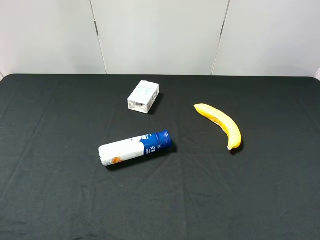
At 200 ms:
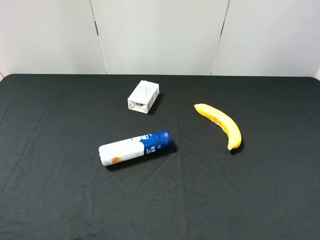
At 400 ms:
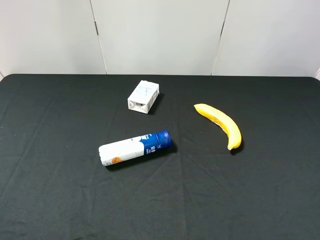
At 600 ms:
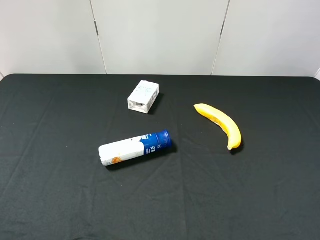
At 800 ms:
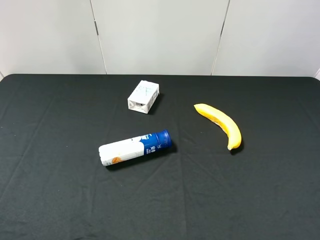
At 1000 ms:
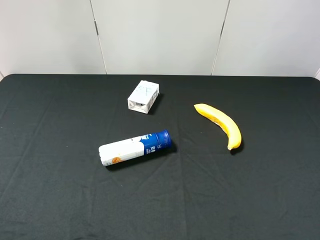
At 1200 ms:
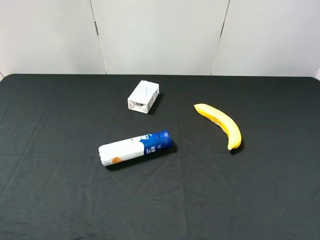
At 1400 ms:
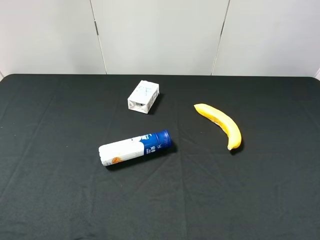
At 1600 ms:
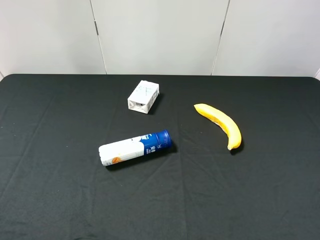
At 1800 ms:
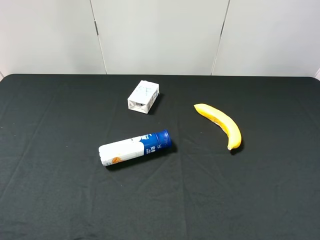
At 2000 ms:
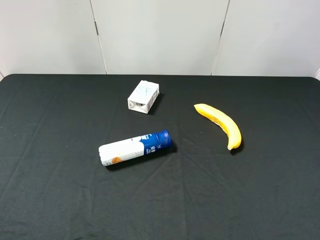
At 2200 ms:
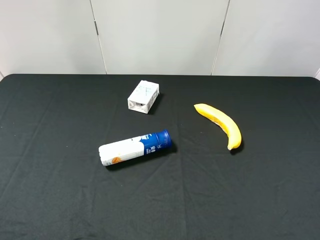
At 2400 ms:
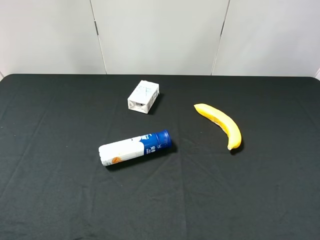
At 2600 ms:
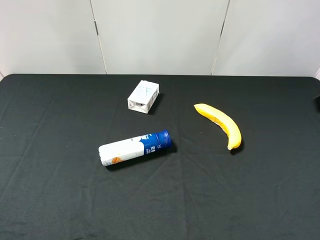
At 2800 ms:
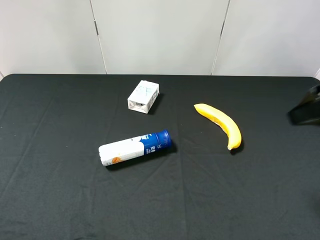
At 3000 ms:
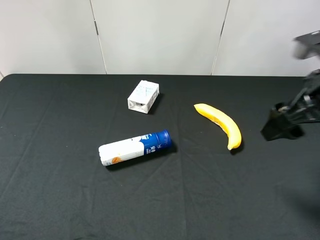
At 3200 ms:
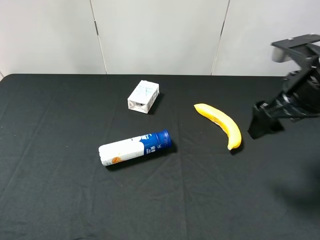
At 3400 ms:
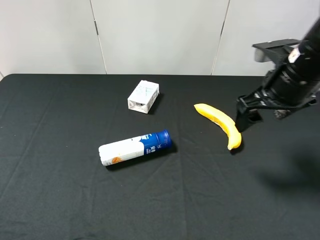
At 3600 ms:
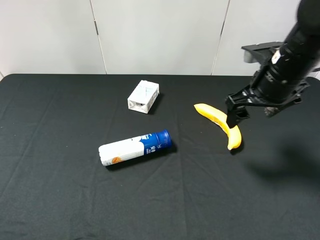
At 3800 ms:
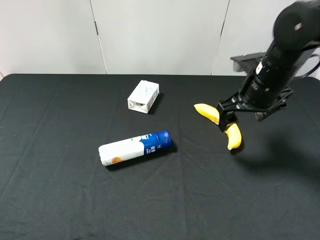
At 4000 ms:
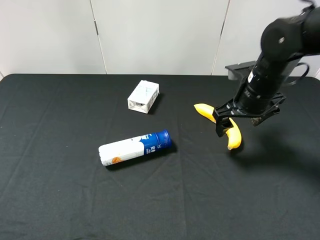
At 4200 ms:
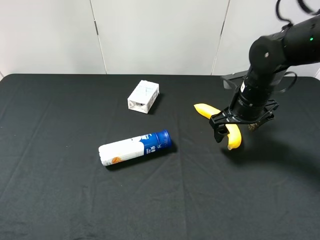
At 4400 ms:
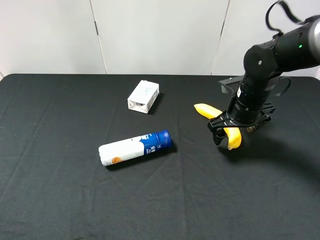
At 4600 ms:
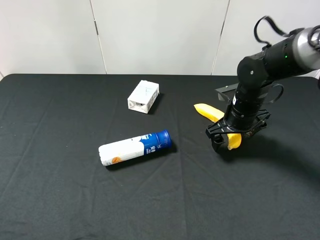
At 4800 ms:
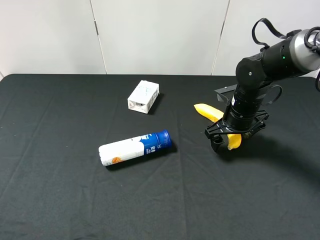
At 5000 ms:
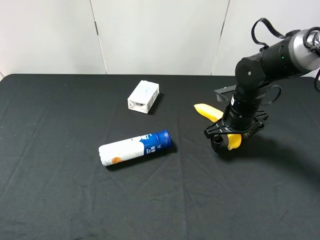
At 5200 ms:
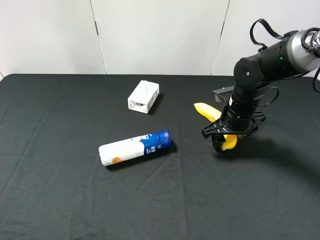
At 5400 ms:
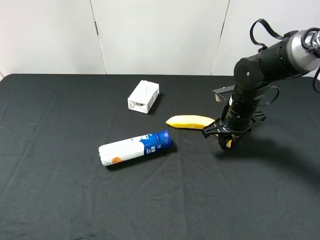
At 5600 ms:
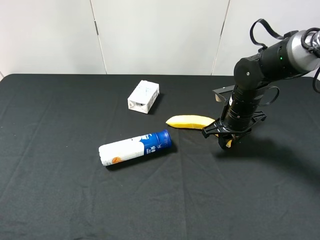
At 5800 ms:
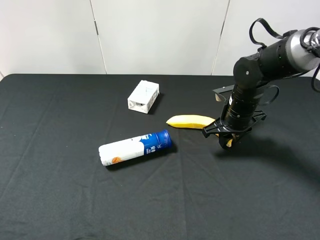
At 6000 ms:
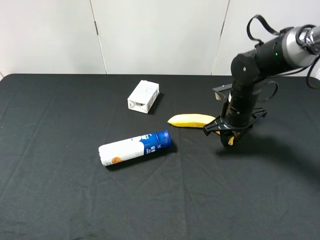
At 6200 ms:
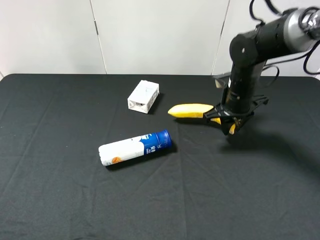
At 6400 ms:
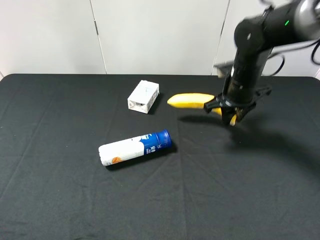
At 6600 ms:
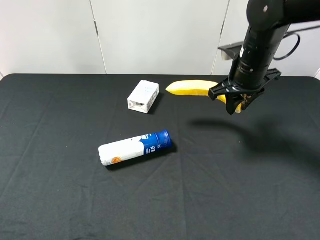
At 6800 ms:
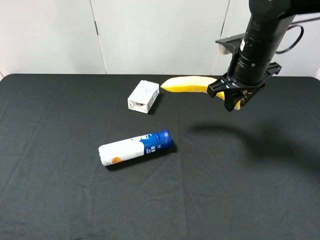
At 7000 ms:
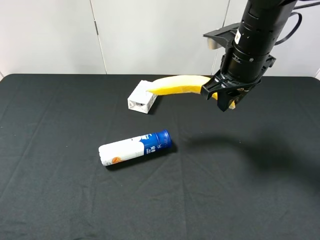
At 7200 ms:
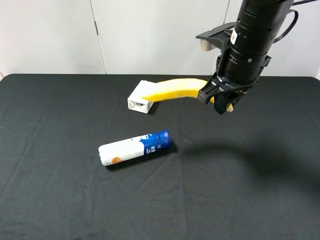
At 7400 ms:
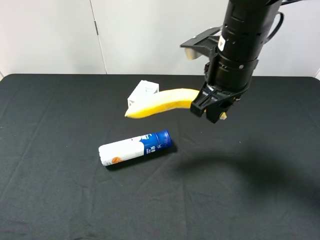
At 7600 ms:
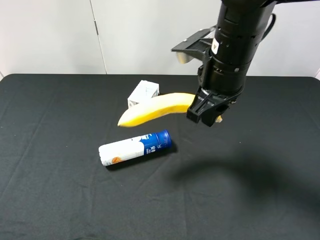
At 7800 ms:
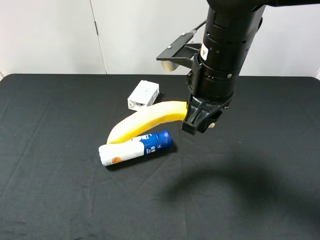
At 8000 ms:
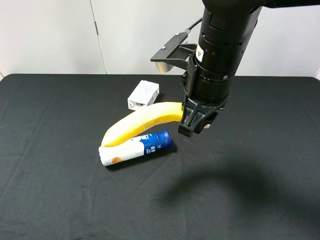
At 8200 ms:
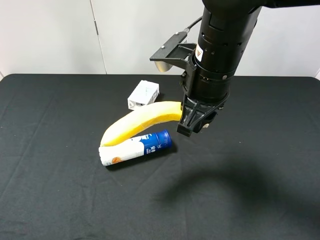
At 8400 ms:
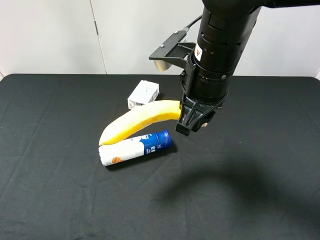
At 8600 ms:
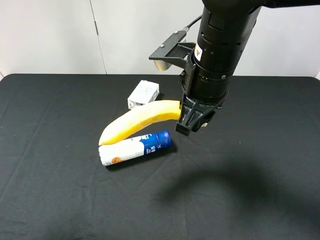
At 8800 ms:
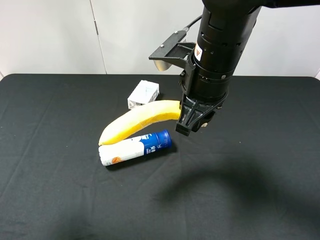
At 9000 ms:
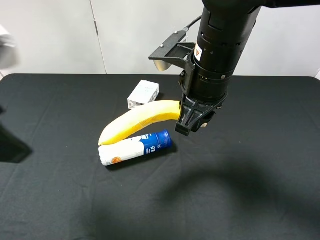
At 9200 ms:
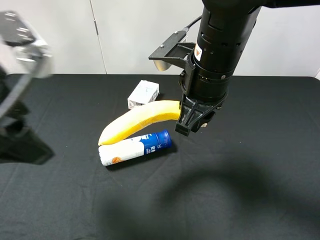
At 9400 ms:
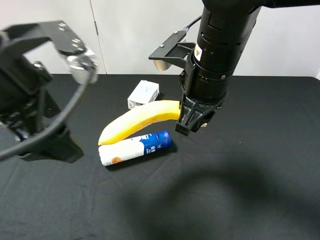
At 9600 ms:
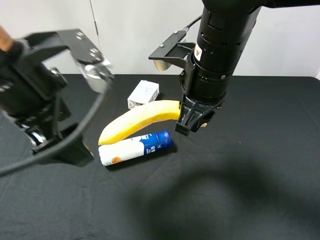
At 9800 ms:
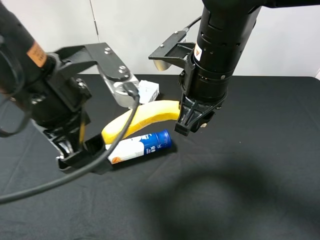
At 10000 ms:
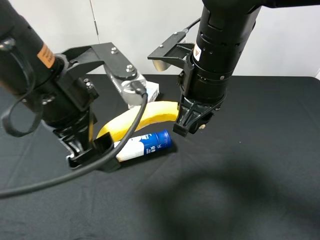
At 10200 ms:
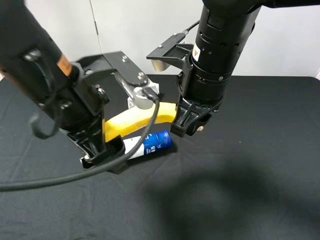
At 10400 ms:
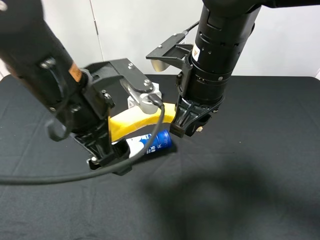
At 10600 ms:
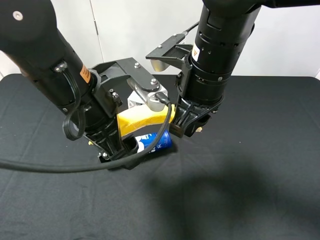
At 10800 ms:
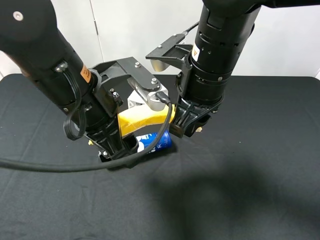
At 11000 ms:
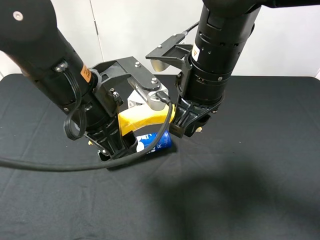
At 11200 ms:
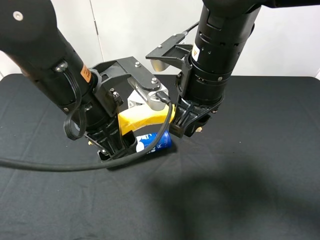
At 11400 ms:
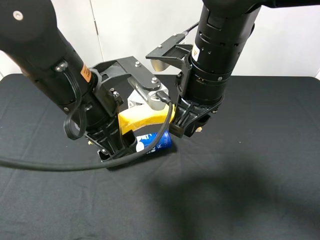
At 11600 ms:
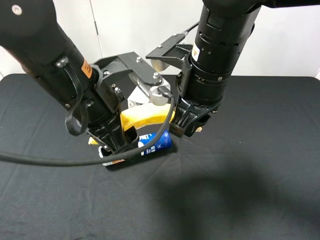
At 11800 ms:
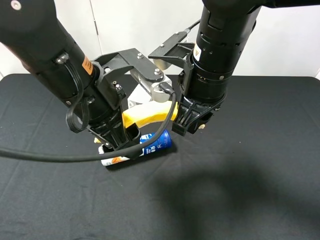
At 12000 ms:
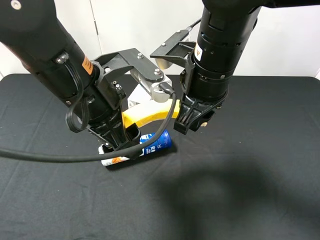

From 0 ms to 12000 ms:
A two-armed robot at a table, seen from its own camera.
Task of the whole recording: use the right gripper to pick up the item and transfer it from the right gripper to the left gripper.
Step, from 0 ms to 6000 ms: Use the right gripper to grab the banana on the right side of the table.
From 0 ms to 1600 ms: Neither gripper changes place.
From 1600 ms to 3000 ms: The right gripper goes approximately 20 cm forward.
From 3000 ms to 4400 ms: The right gripper shifts roughly 20 cm downward and forward.
From 4400 ms to 6000 ms: The right gripper closes its fingers.
From 6000 ms to 7600 ms: The right gripper goes about 20 cm upward, to the left and backward.
From 7600 ms to 9000 ms: The left gripper travels forward and to the right by about 15 cm.
From 9000 ms to 10400 ms: The left gripper is displaced to the right and downward by roughly 15 cm.
From 10400 ms to 12000 ms: There are only small adjustments of the grippers.

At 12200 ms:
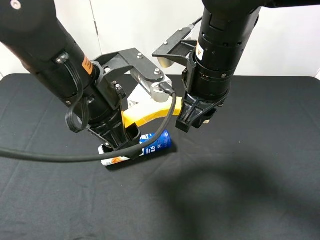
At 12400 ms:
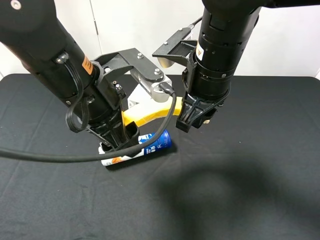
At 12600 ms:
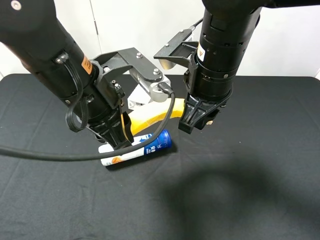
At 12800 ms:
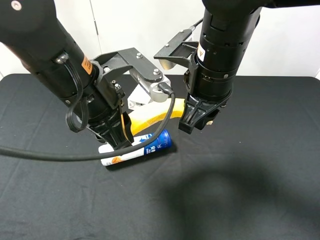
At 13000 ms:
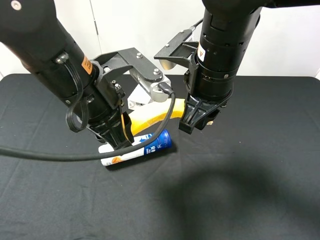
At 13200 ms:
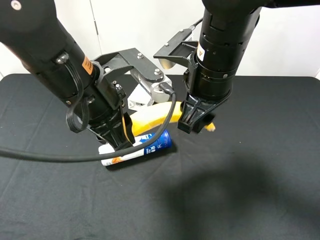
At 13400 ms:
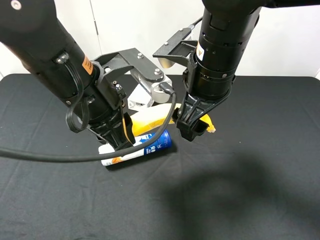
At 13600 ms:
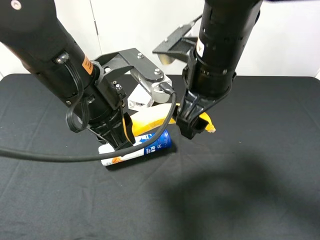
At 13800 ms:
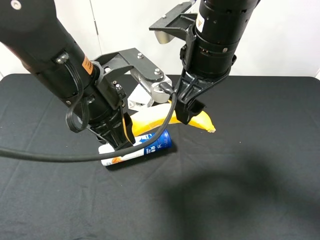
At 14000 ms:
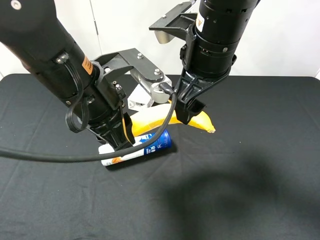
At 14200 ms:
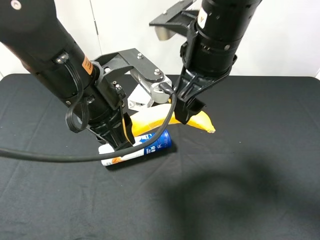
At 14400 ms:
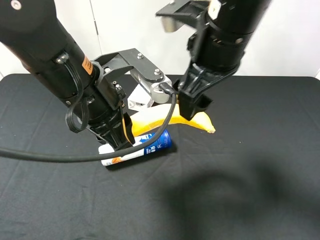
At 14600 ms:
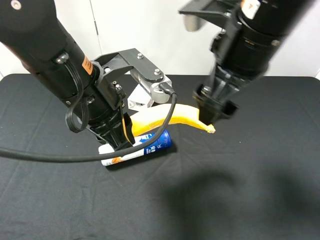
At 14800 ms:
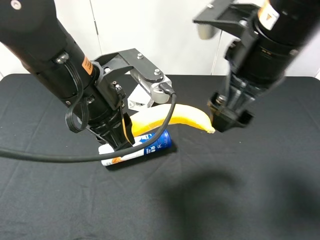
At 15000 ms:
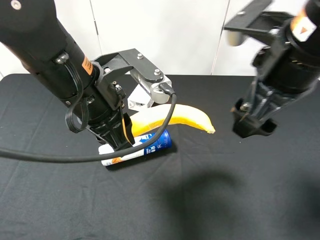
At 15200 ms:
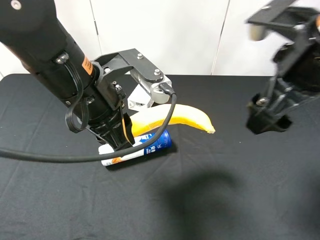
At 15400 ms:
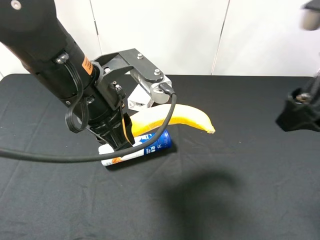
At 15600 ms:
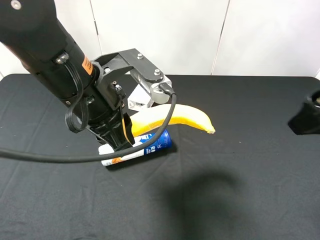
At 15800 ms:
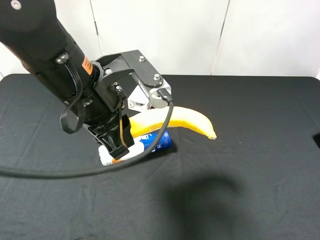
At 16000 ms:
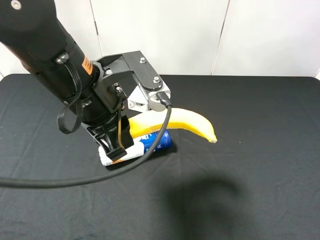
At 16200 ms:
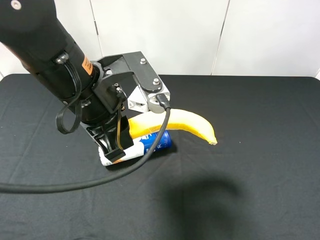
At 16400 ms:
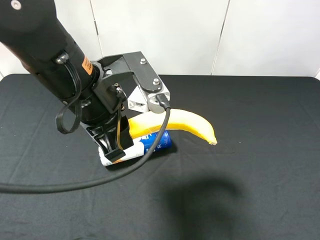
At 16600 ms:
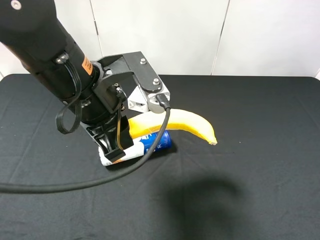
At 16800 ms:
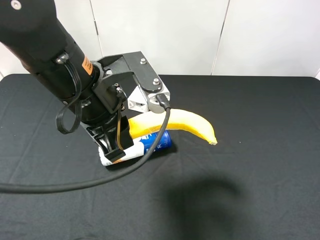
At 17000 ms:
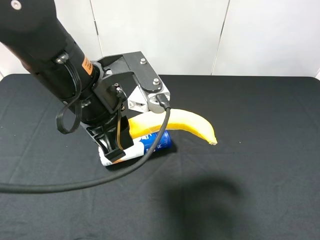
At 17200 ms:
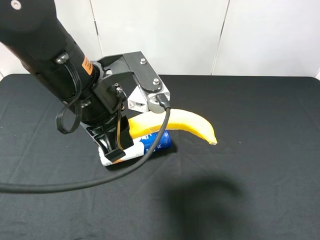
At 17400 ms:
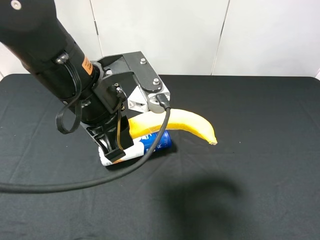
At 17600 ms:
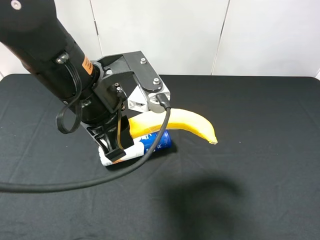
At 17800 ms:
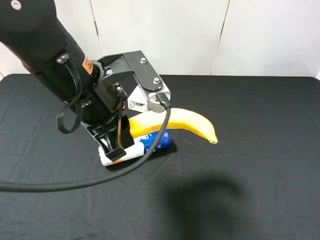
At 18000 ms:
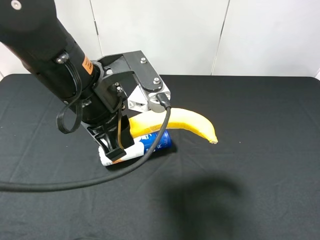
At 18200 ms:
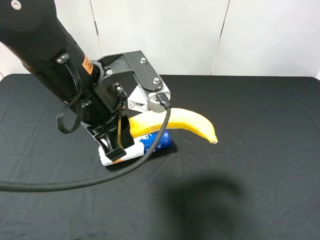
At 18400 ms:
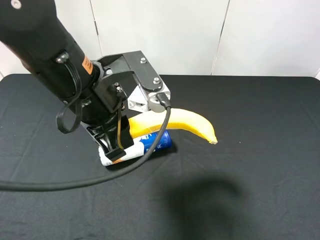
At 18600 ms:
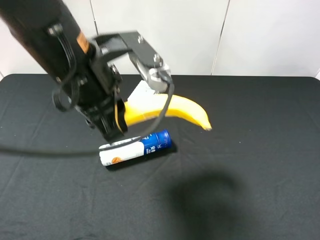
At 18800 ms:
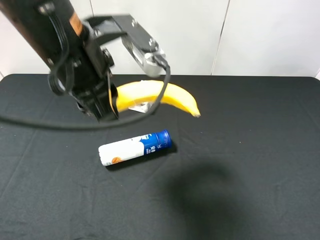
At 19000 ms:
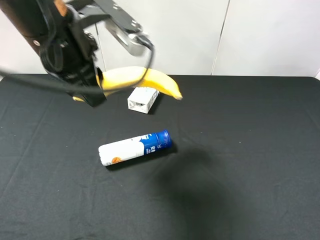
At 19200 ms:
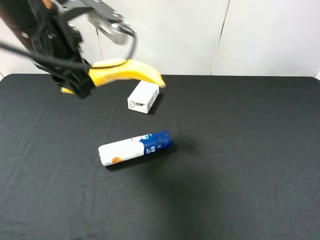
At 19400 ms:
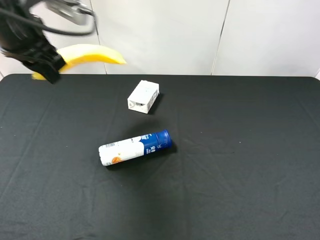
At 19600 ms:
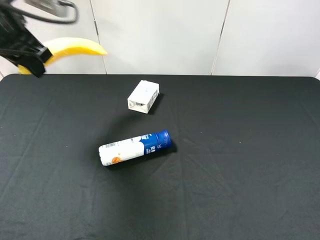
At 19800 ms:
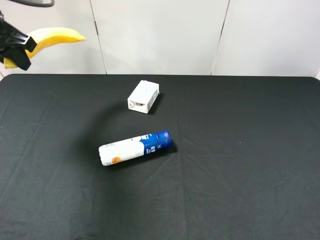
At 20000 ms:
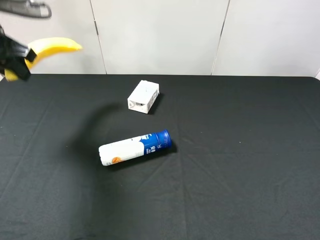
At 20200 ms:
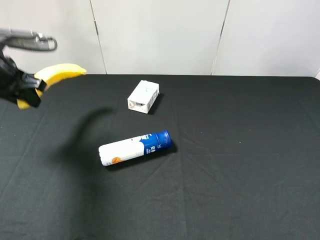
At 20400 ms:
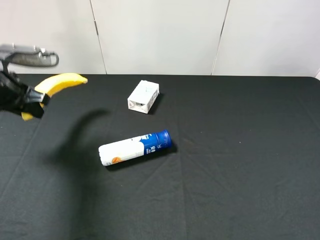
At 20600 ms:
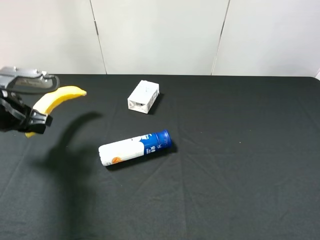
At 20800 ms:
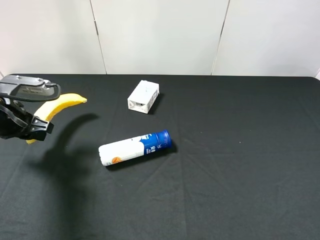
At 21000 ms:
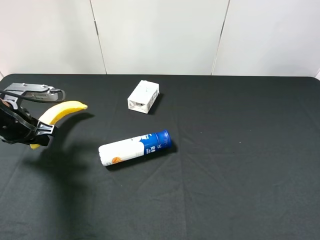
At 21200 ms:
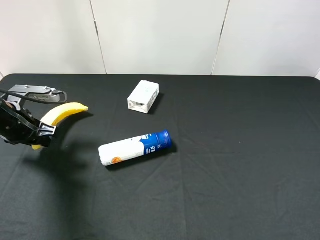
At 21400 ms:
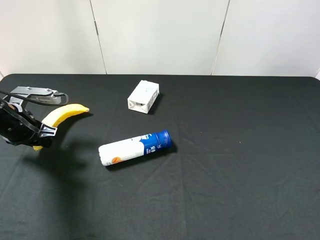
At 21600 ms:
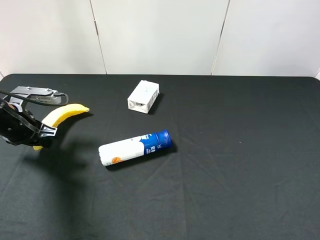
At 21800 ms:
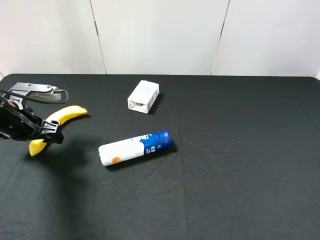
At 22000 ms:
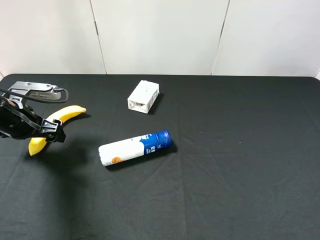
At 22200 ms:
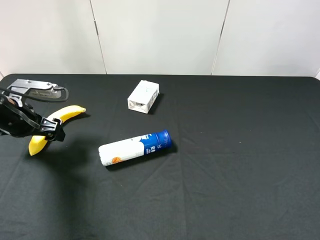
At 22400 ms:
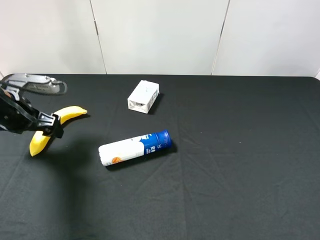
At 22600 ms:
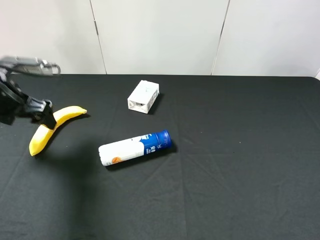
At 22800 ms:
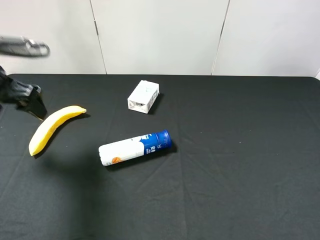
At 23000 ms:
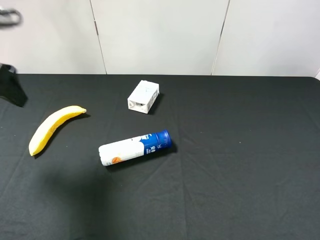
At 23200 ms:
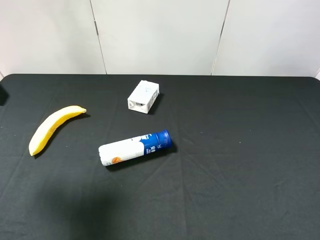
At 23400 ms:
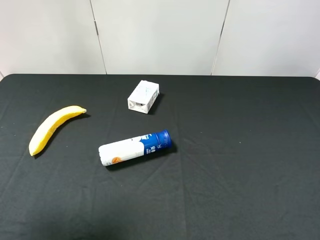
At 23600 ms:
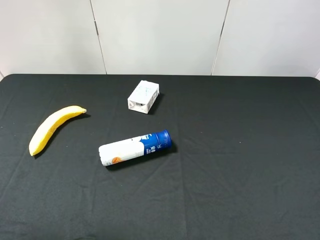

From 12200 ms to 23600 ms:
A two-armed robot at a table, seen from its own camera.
Task of the whole recording: use the right gripper to pick up the item and transfer it from the right gripper to the left gripper.
Step, from 14200 ms to 22400 ms: The left gripper places banana on the left side of the table.
From 12200 ms to 13600 ms: The right gripper opens; the left gripper closes its fingers.
From 13600 ms to 15000 ms: The right gripper goes some 10 cm to the right and backward.
From 15000 ms to 16400 ms: The right gripper shifts about 20 cm backward and to the right.
From 17800 ms to 19400 ms: The left gripper shifts roughly 15 cm to the left, forward and upward.
From 19400 ms to 20800 ms: The left gripper moves downward and to the left, some 20 cm.
From 20800 ms to 22200 ms: The left gripper opens.
From 22200 ms to 23600 ms: The left gripper goes roughly 30 cm upward and backward.
